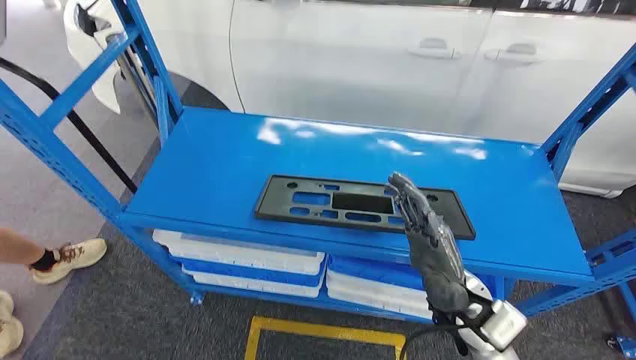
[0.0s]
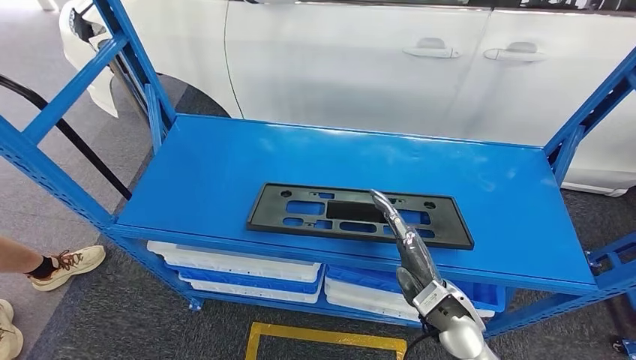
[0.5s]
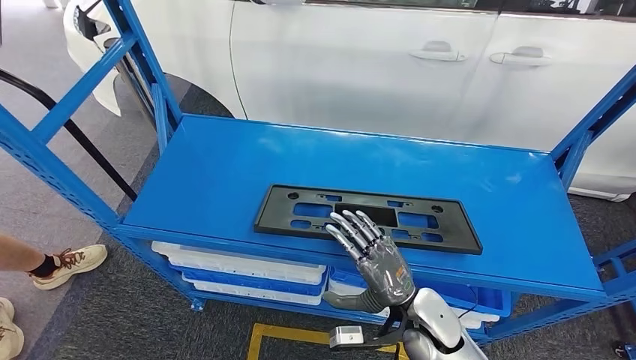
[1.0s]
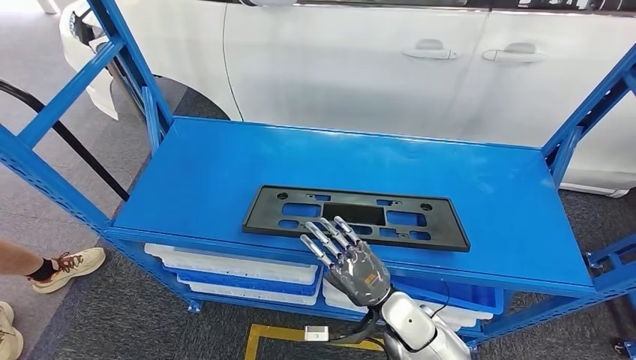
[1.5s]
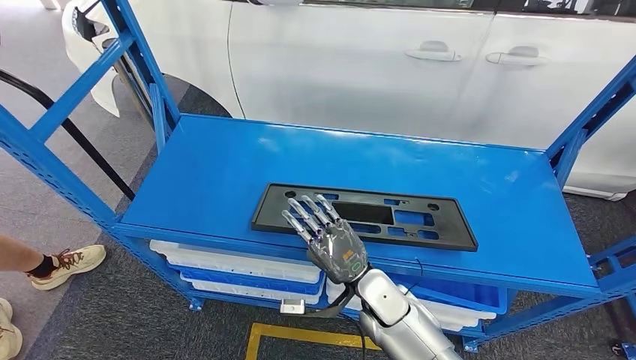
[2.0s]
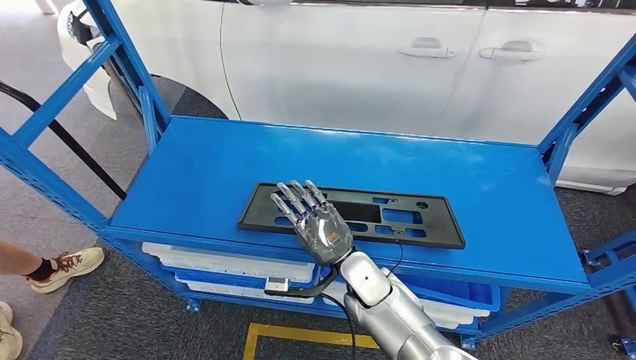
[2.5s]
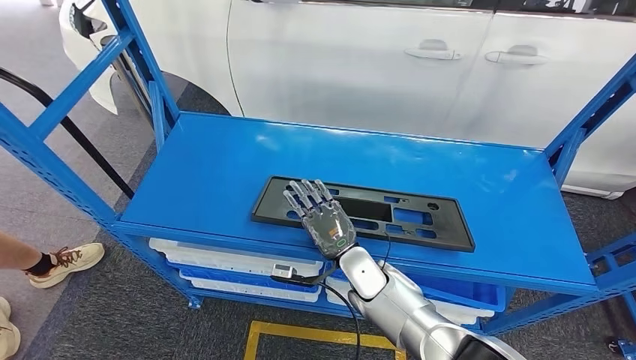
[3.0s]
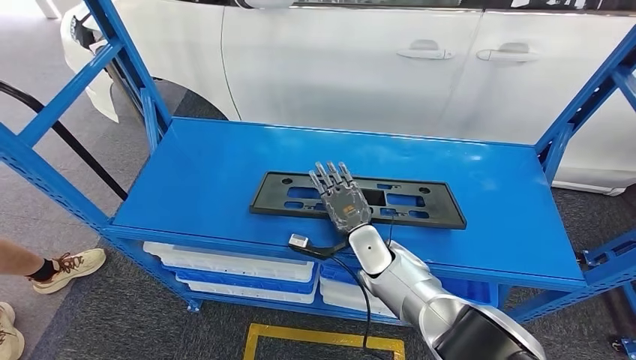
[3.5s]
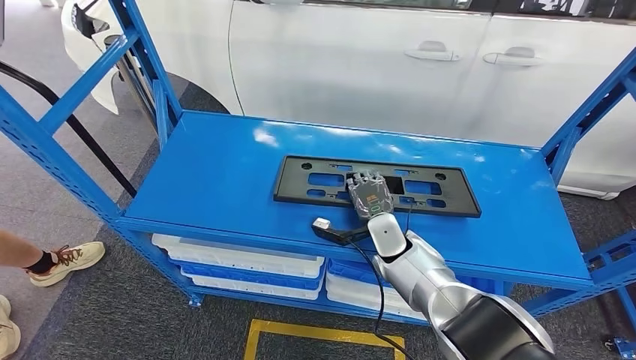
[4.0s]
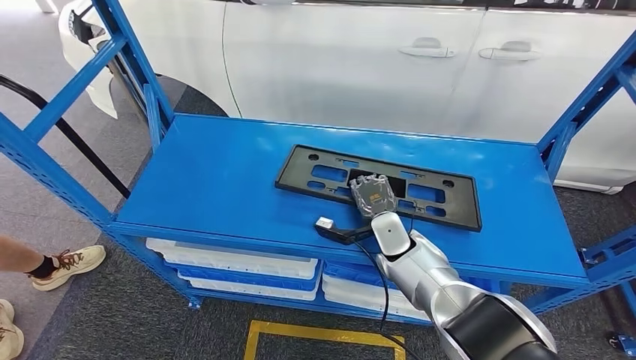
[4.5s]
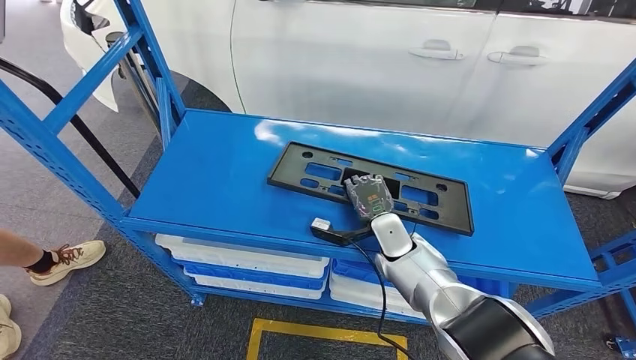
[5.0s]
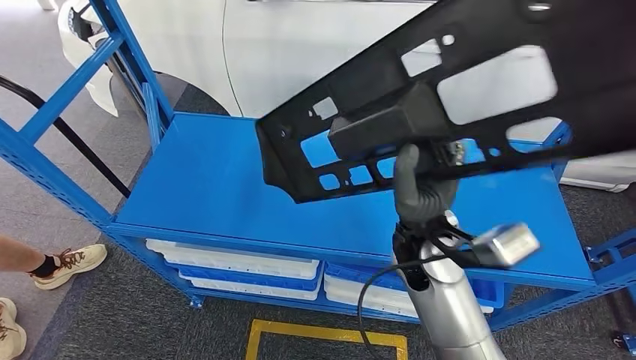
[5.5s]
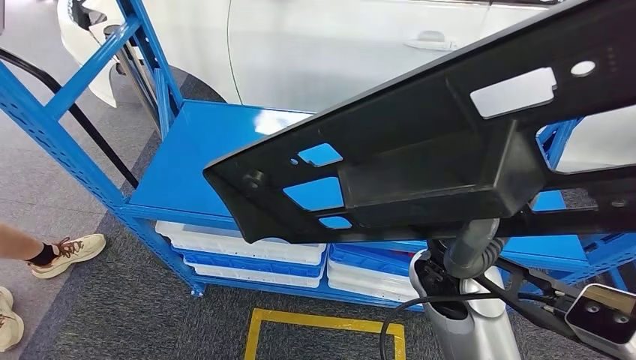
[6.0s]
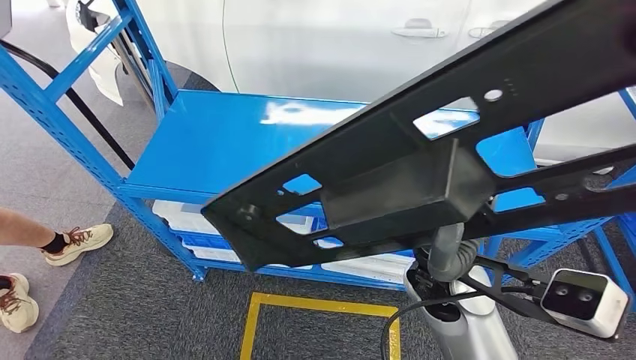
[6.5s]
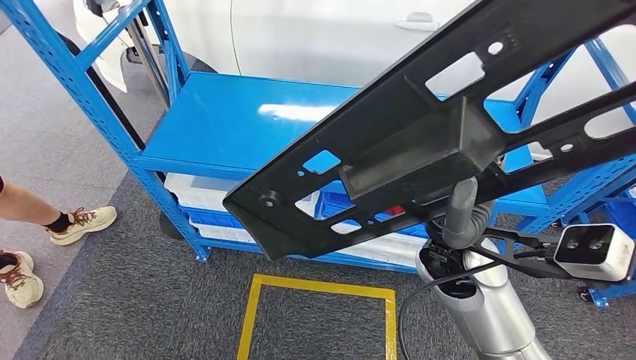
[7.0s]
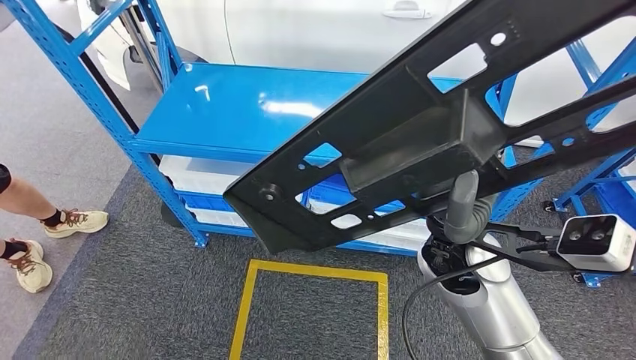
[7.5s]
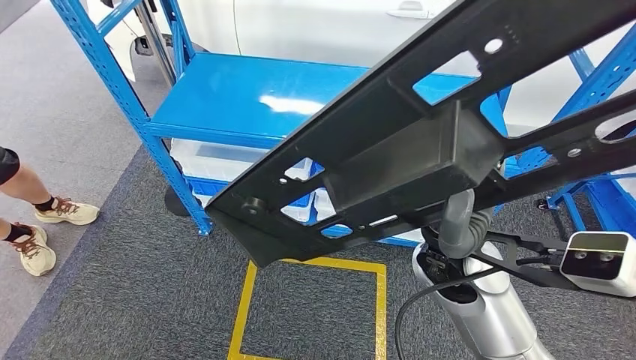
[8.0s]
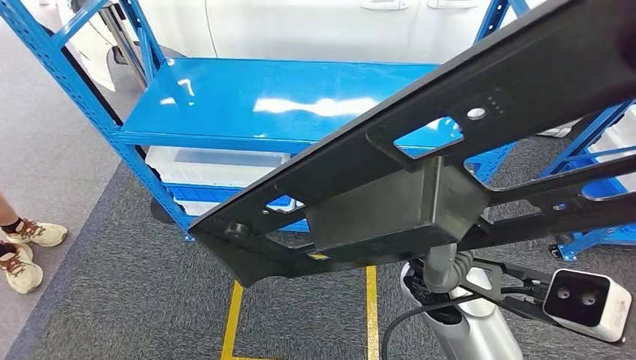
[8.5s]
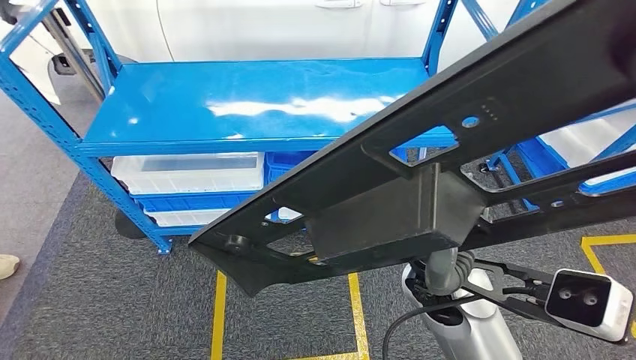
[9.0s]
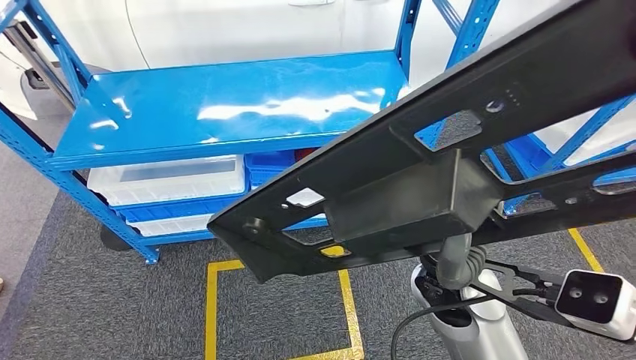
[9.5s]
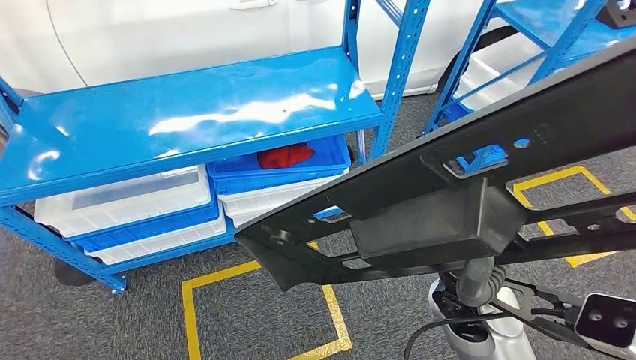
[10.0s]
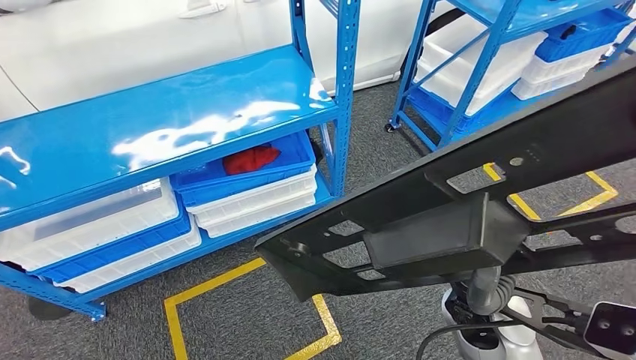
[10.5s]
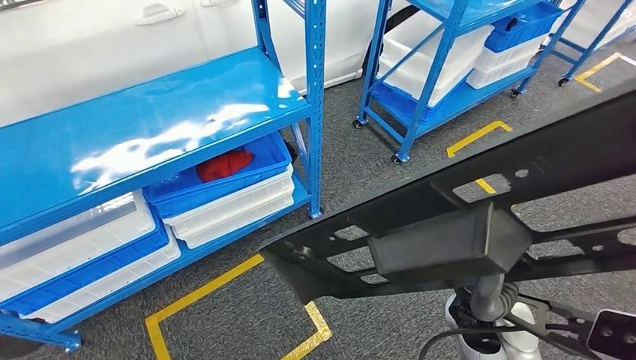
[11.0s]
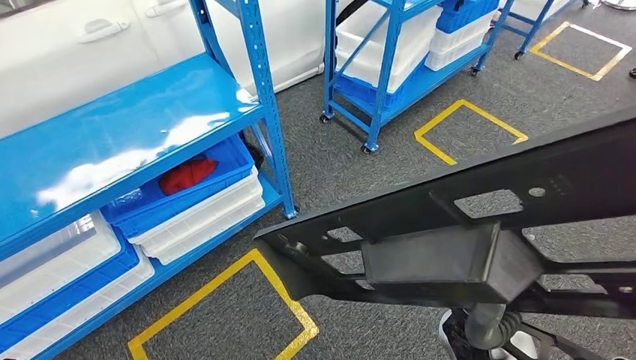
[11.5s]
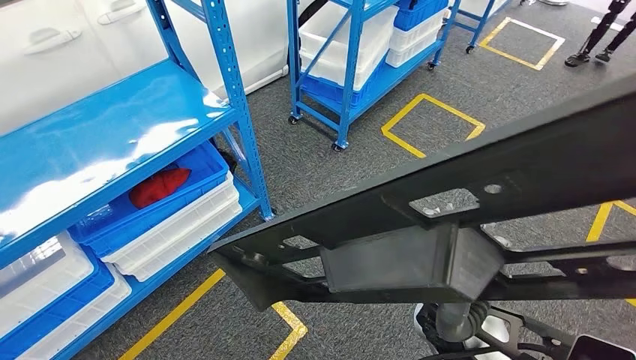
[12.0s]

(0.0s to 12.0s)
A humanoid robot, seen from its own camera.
Step, 0.0s - 5.0s: Pick up the large material from the shelf.

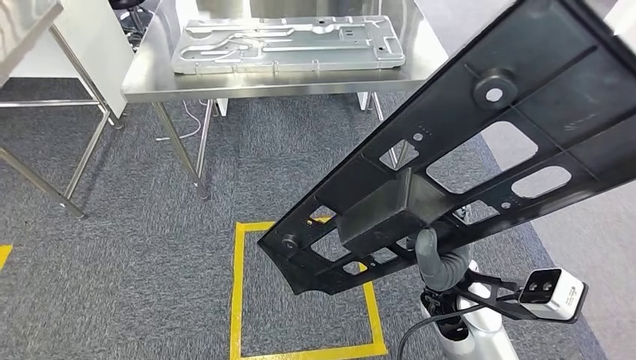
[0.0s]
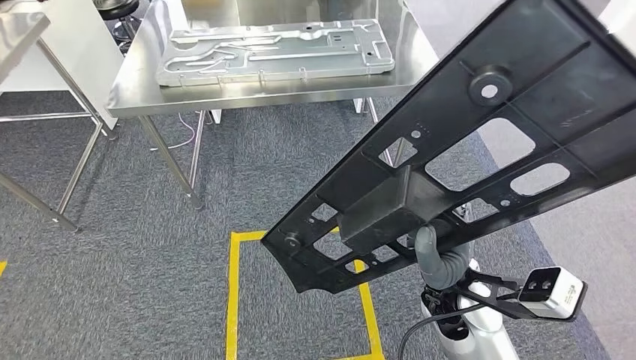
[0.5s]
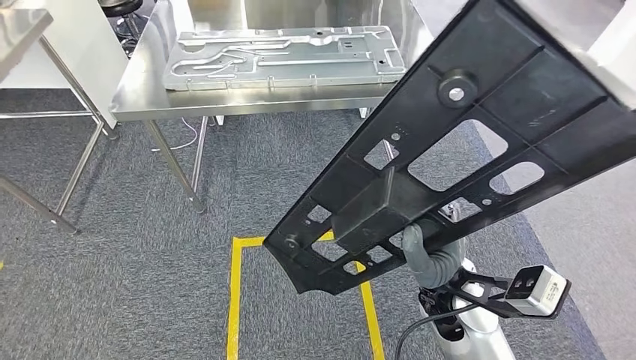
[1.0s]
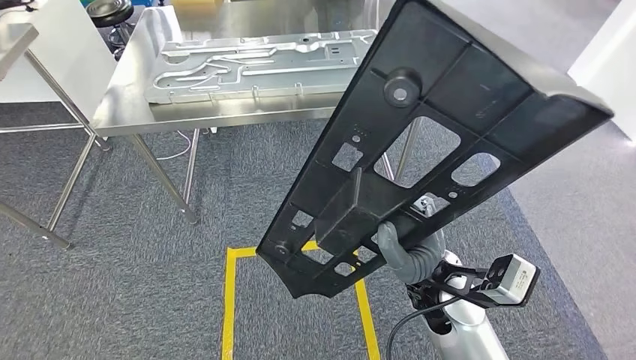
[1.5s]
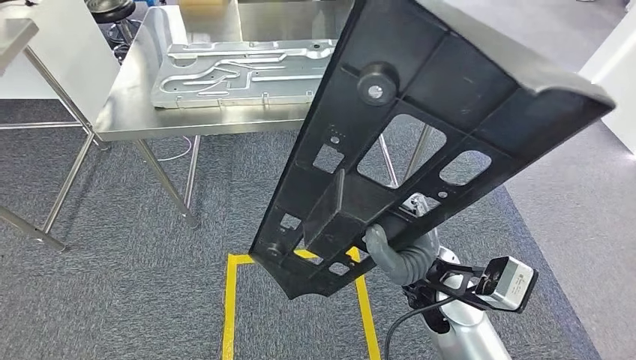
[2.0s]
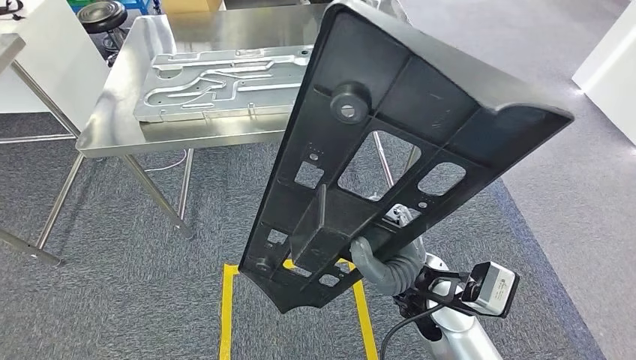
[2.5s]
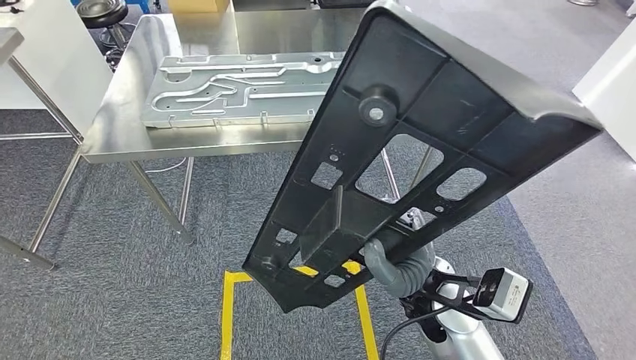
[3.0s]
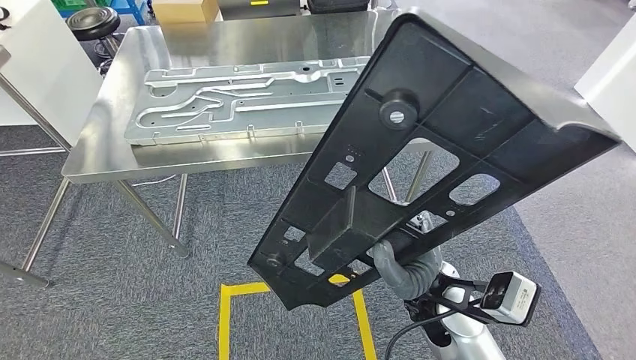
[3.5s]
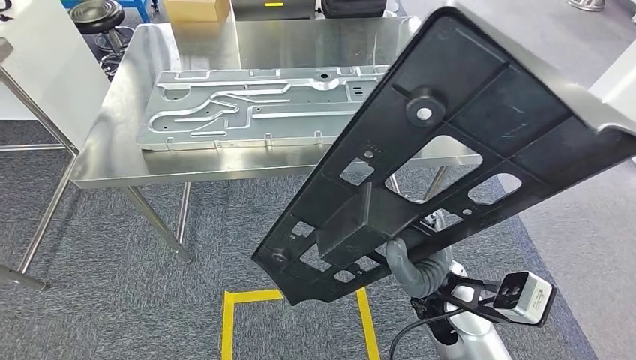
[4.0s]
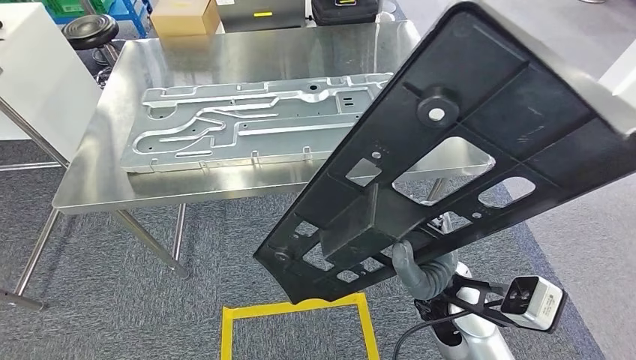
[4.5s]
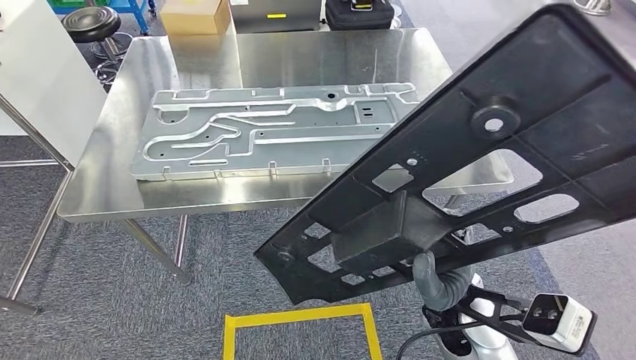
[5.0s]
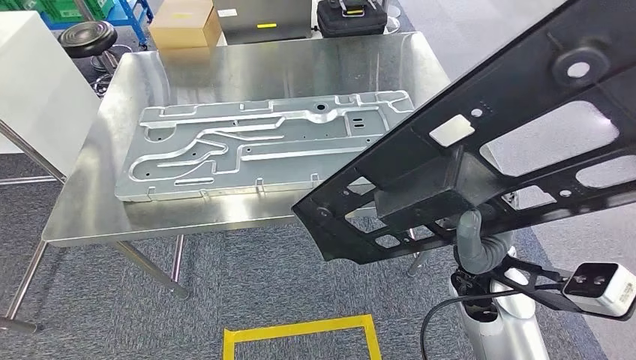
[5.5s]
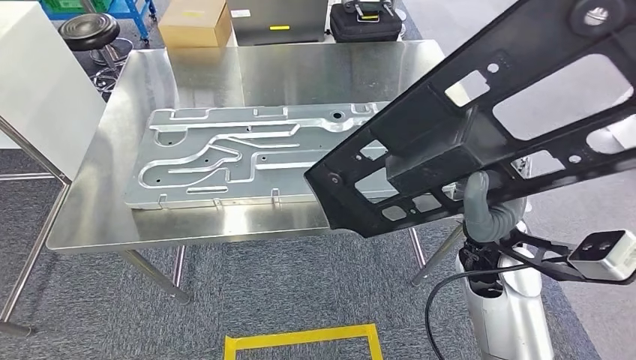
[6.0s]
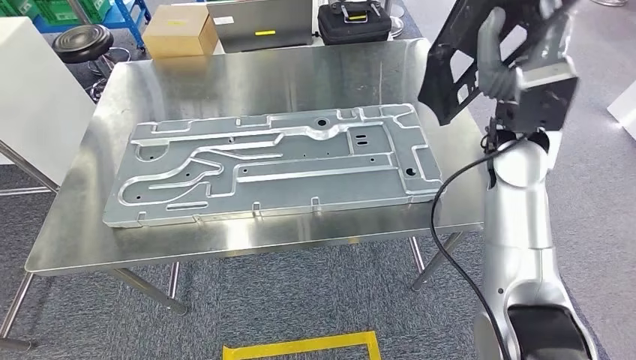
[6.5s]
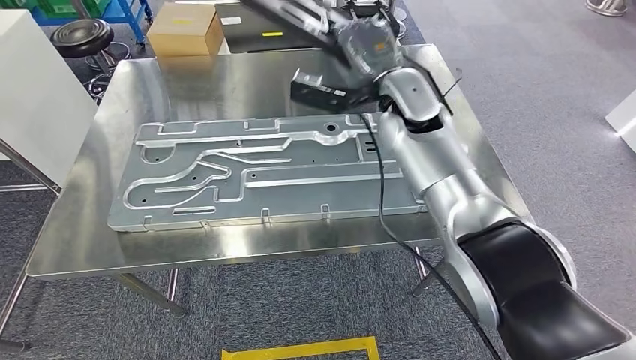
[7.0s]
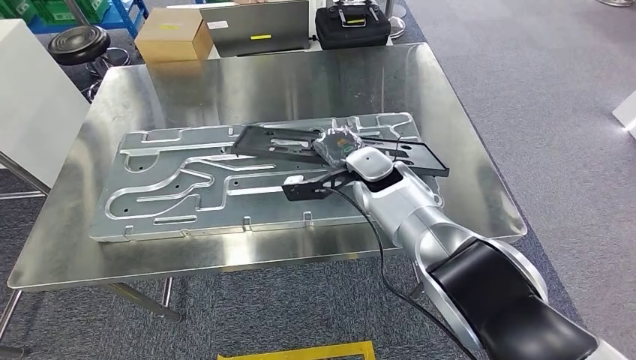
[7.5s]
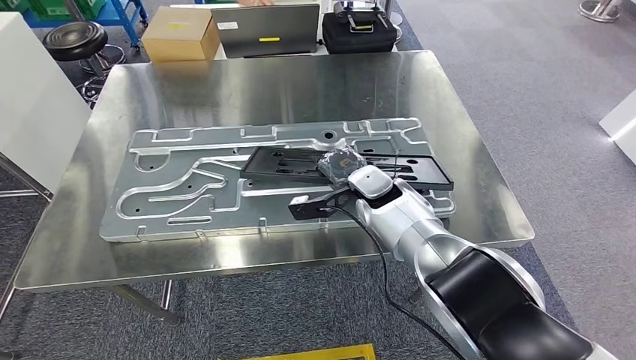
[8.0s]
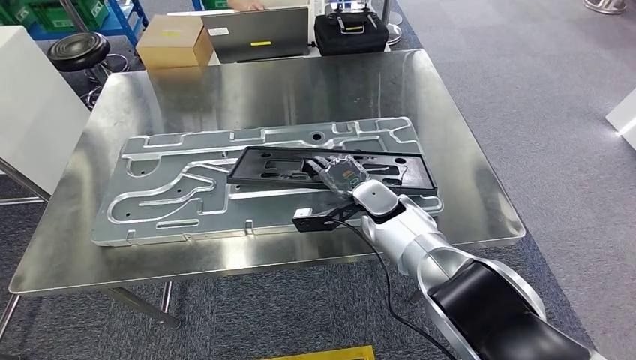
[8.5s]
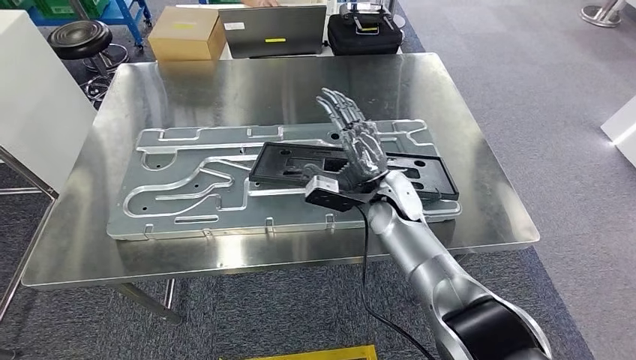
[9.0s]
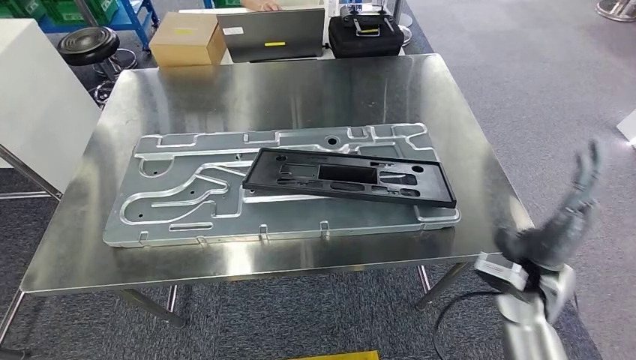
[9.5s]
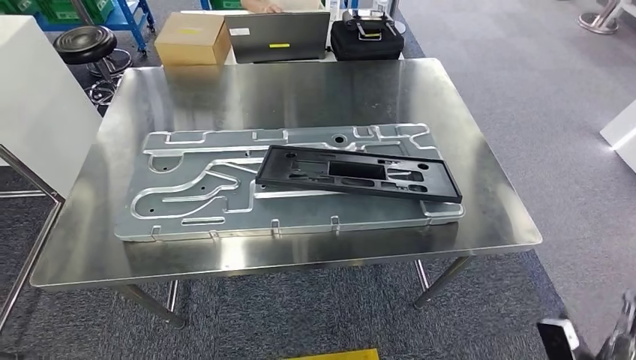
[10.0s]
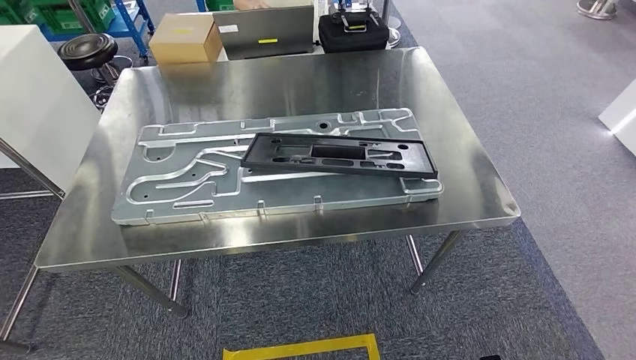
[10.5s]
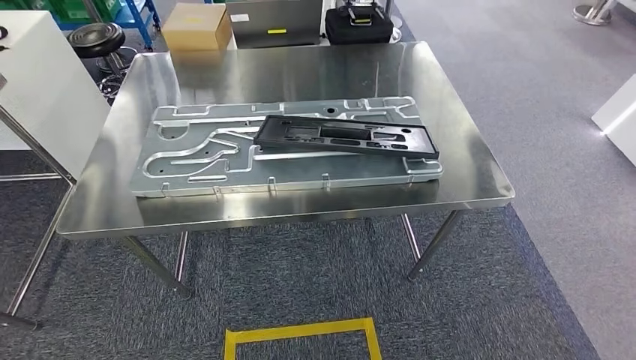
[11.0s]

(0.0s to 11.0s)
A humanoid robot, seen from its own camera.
Step, 0.0s - 3.5s: Move the large material to the workbench.
Step, 6.0s - 9.0s: Insert the large material into the corresponding slot on the workbench.
